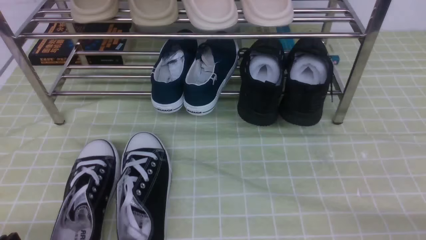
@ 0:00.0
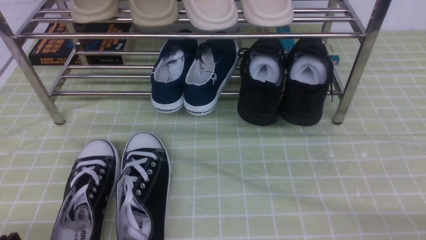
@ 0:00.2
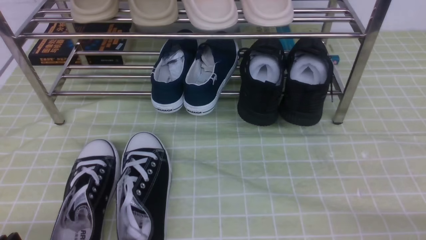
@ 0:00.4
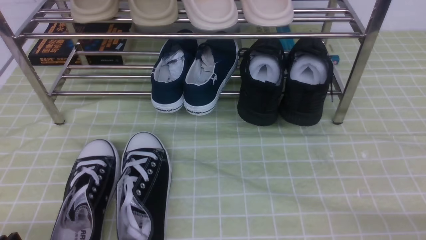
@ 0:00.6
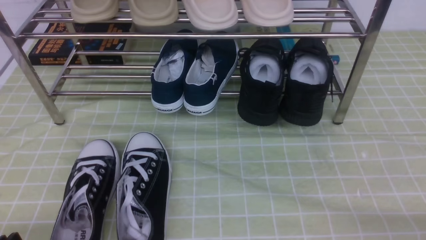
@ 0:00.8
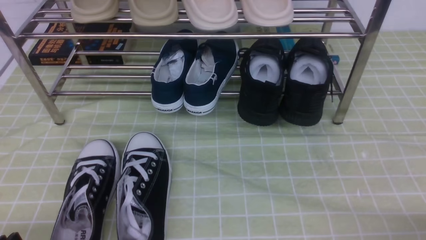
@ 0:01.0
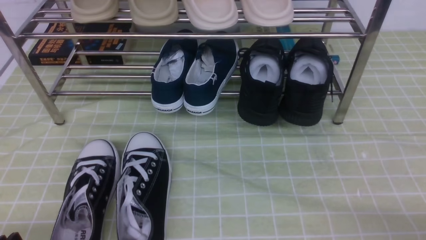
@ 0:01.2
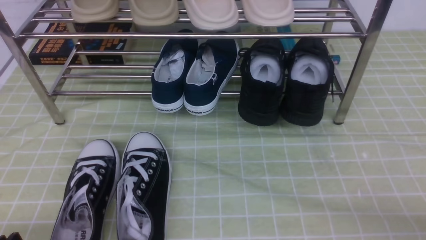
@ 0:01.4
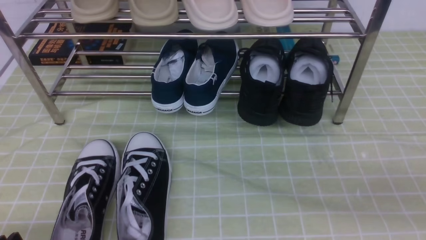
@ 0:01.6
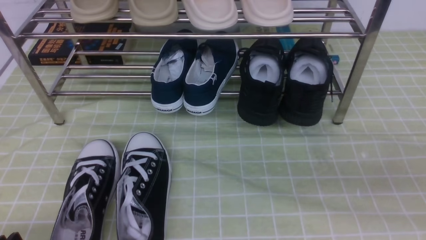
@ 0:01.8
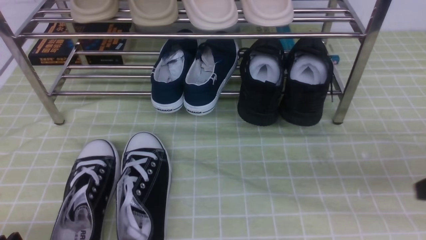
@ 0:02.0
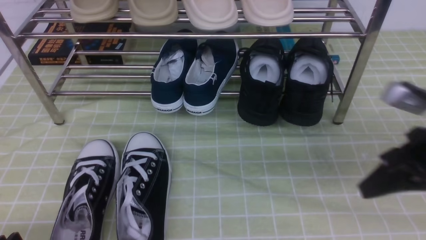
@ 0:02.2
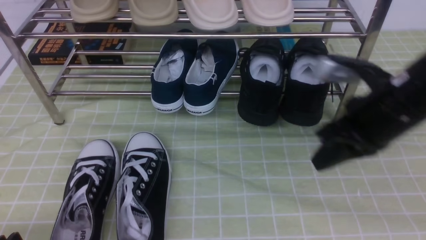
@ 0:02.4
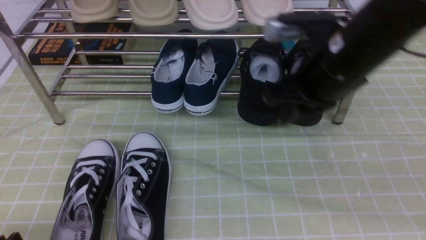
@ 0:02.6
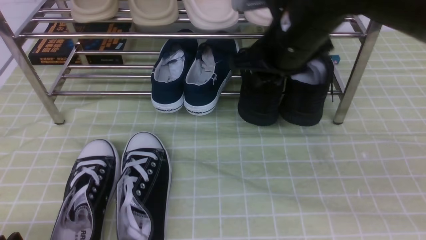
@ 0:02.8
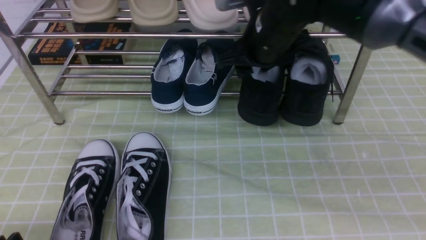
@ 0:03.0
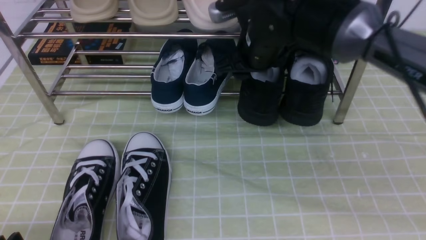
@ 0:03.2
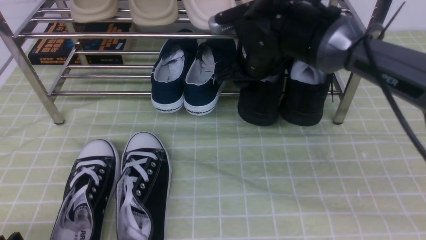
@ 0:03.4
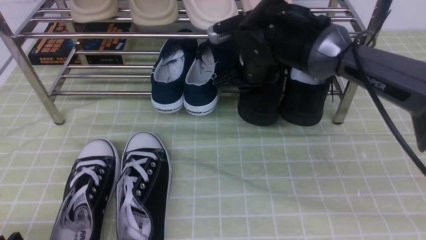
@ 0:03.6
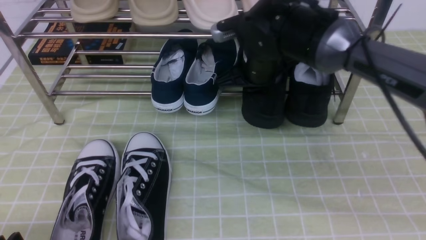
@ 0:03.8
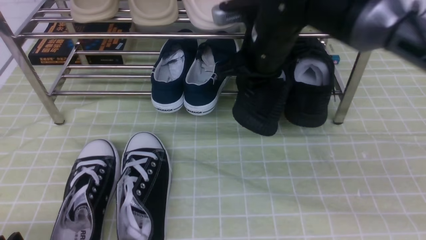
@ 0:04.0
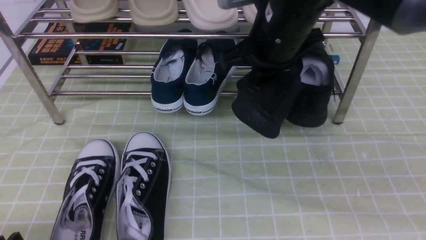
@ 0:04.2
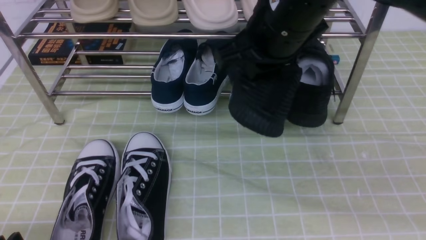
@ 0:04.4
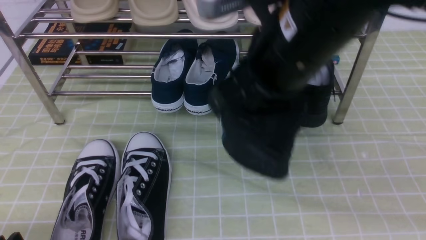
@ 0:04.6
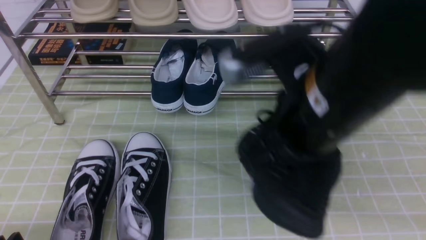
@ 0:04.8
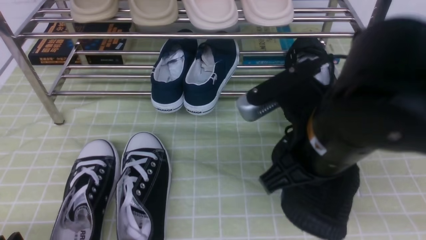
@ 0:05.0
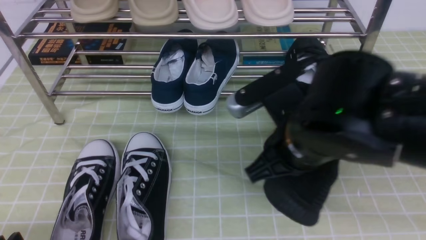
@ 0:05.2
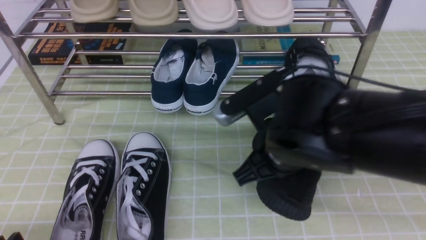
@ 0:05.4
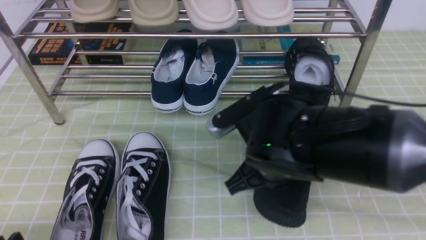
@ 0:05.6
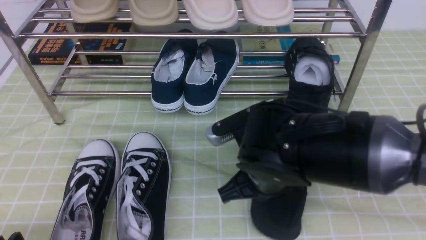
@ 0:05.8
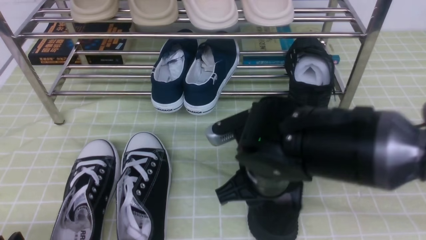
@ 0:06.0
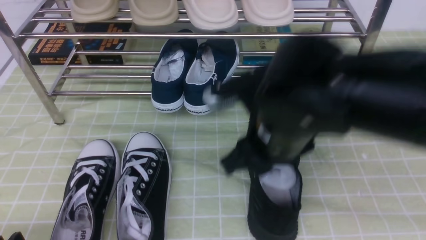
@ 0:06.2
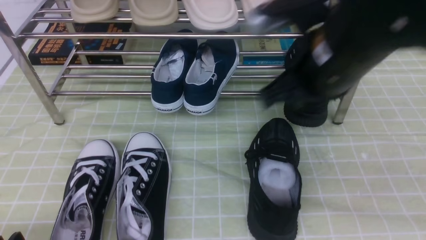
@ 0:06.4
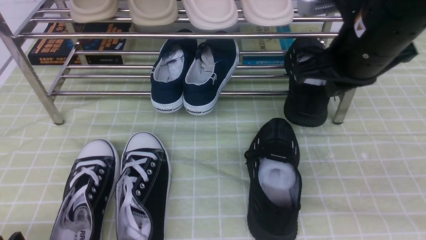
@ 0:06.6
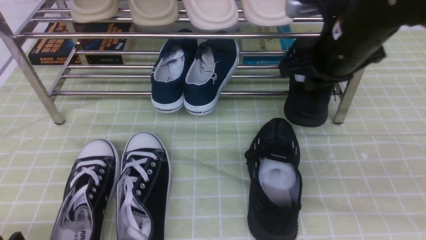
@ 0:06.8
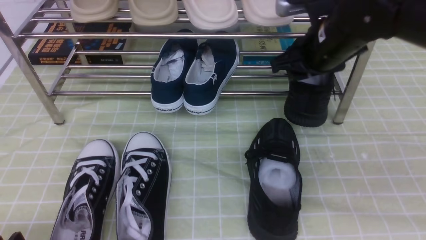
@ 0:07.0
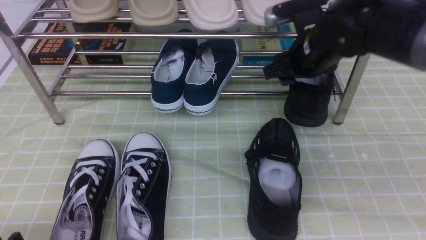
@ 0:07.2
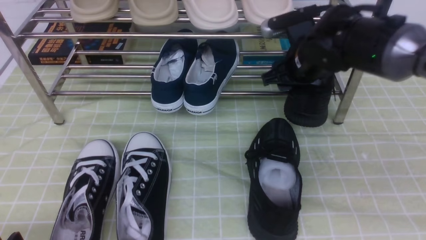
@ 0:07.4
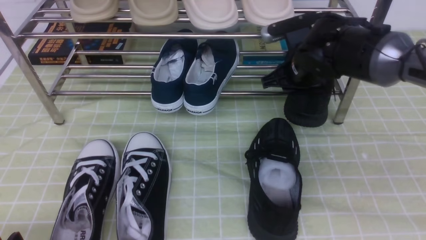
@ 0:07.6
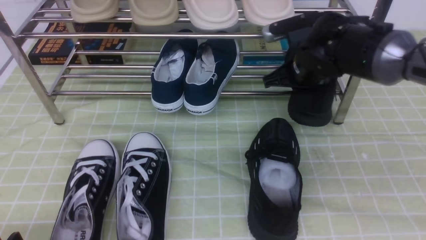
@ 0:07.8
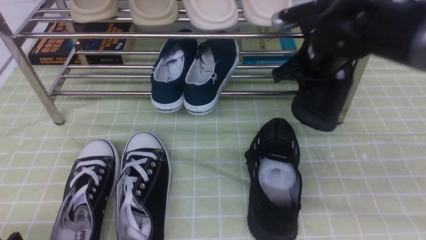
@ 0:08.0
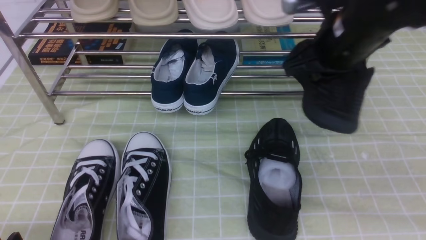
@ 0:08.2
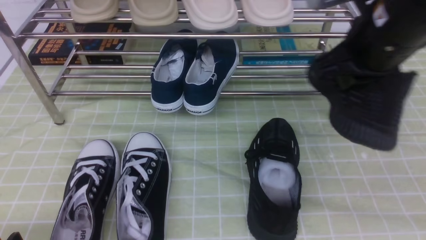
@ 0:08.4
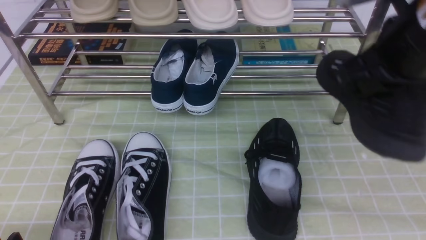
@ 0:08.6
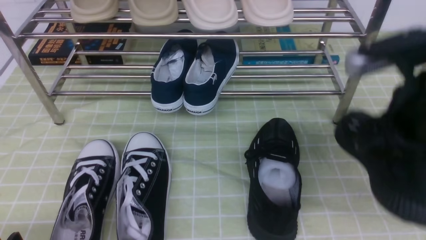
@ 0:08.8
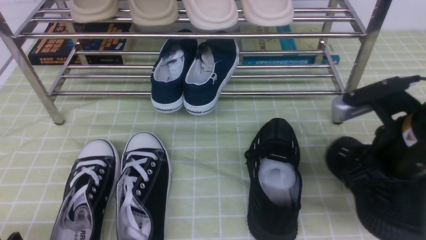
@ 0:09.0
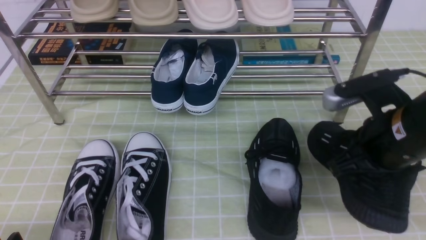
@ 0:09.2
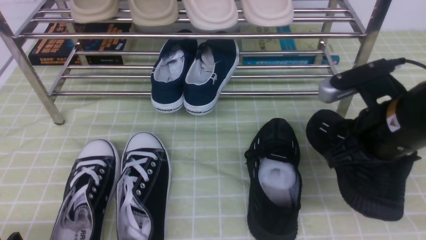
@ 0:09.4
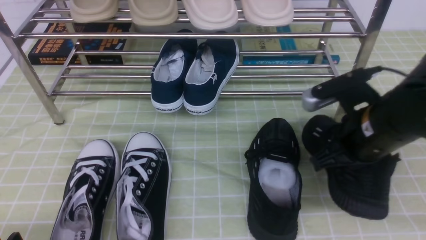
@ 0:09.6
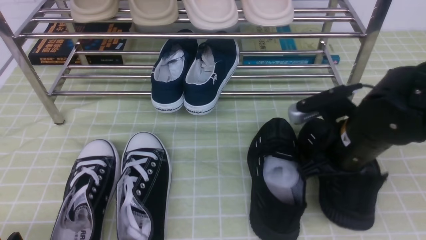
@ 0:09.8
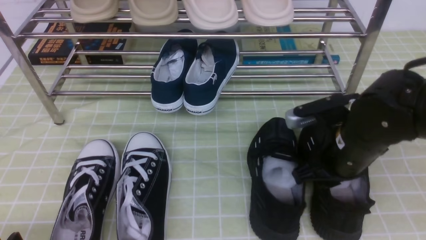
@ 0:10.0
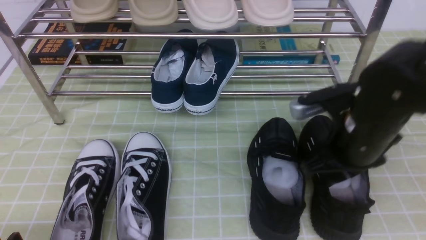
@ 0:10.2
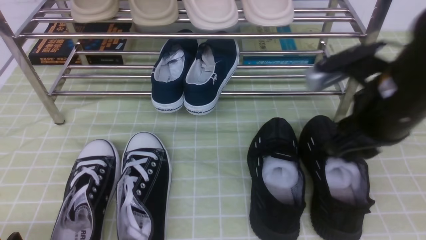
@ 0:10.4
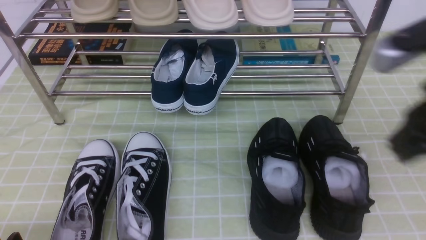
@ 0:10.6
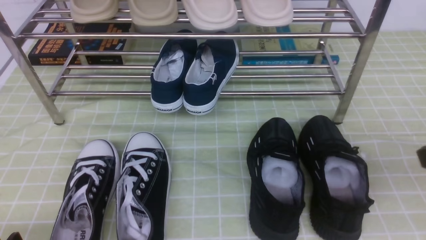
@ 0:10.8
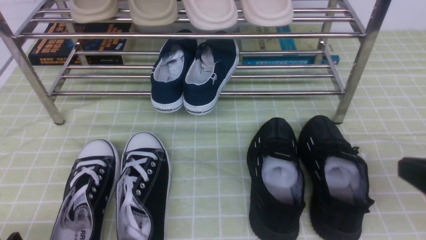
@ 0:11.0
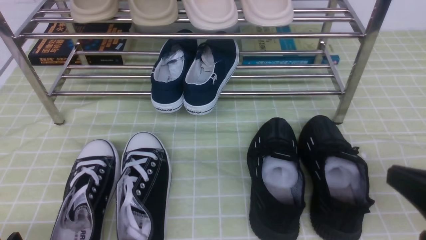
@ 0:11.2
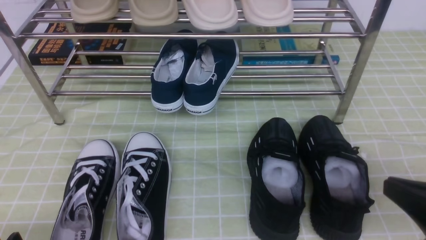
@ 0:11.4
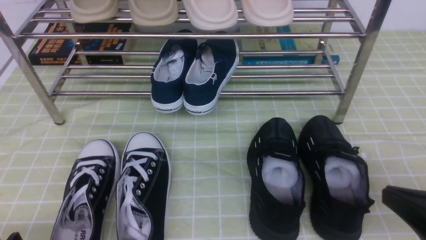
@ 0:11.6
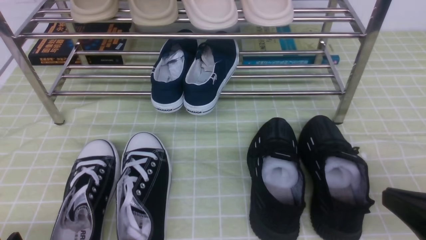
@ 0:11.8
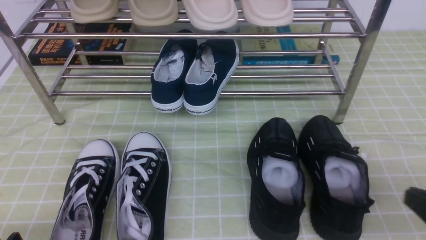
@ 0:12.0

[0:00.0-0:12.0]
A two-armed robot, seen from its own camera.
Step, 0:00.0 to 0:03.8: use the right arm to clamp a shoe on the right side of the shoe rack.
Step, 0:04.0 to 0:06.0: use the right arm to take out the clamped shoe from the shoe rack and put it down.
Step, 0:06.2 to 0:07.6: use the right arm to clamp a shoe on the right side of the shoe rack.
Step, 0:07.8 to 0:10.2: use the right arm to take out the clamped shoe from the shoe rack and put it down.
0:00.0 to 0:01.6: The right gripper is displaced upward by approximately 10 cm, and closes up.
0:01.6 to 0:03.0: The right gripper shifts some 40 cm forward and to the left, and opens its fingers.
0:03.0 to 0:04.4: The right gripper heads backward and upward, covering about 10 cm, and closes up.
0:04.4 to 0:06.0: The right gripper goes some 15 cm downward and backward, and opens.
0:06.0 to 0:07.6: The right gripper heads forward and to the right, covering about 20 cm, and closes, then opens again.
0:07.6 to 0:09.0: The right gripper heads backward, covering approximately 20 cm, and closes up.
0:09.0 to 0:10.4: The right gripper opens up.
0:10.4 to 0:12.0: The right gripper shifts roughly 20 cm backward, downward and to the right, and closes.

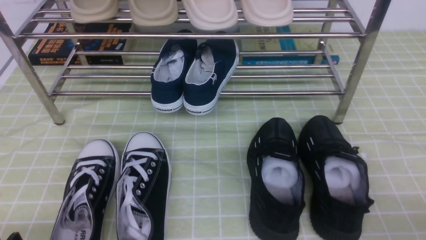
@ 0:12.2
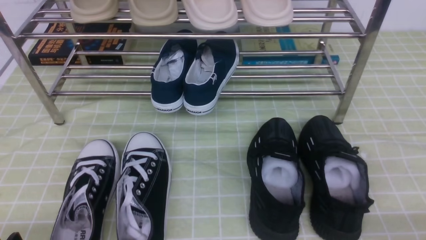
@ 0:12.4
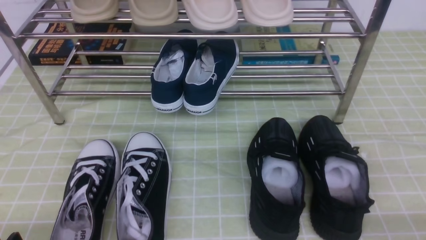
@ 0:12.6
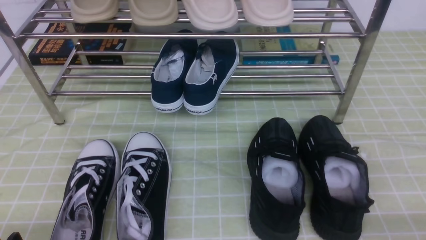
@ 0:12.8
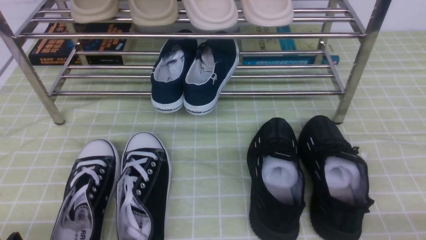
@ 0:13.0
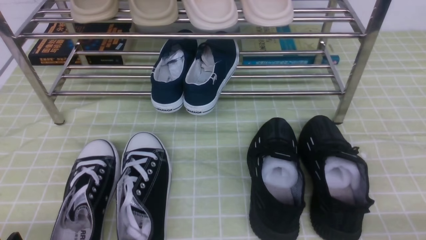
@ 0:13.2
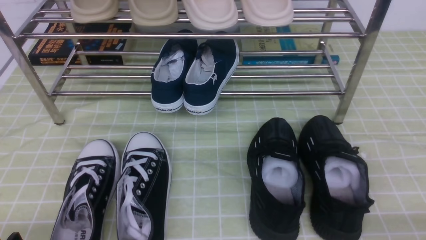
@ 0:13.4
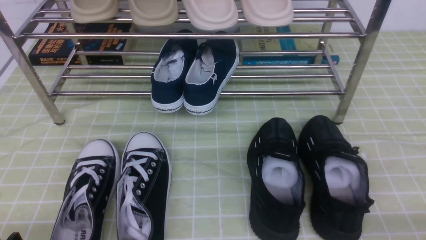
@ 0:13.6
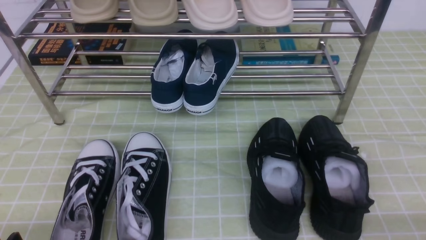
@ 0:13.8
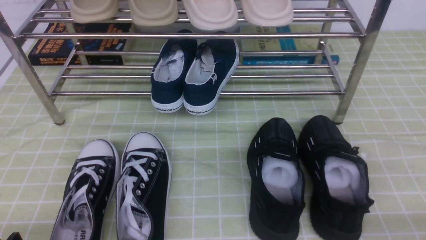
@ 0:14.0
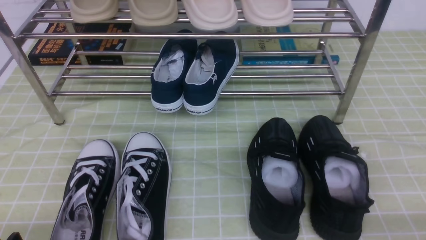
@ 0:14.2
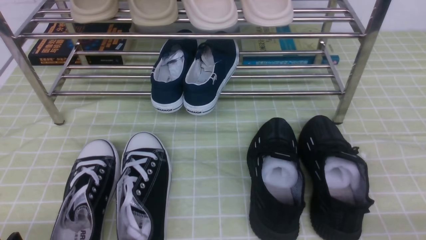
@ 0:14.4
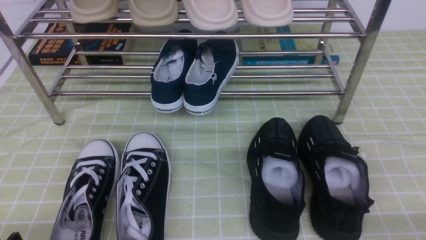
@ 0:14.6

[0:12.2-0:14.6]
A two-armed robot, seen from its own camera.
0:13.4 to 0:14.6: Both grippers stay put.
